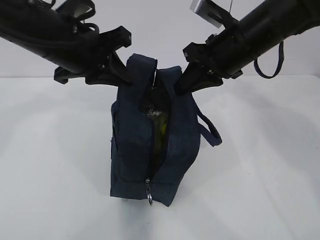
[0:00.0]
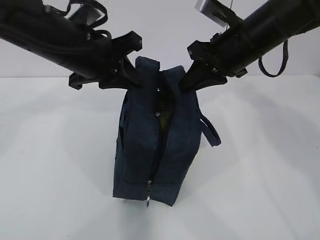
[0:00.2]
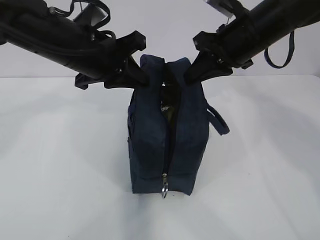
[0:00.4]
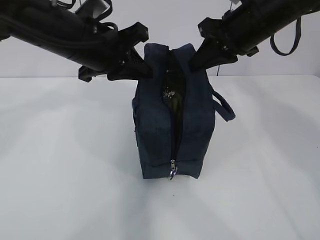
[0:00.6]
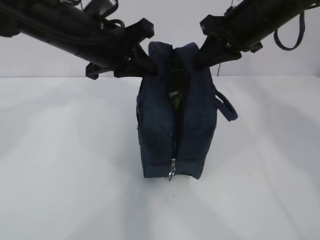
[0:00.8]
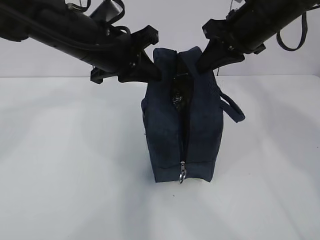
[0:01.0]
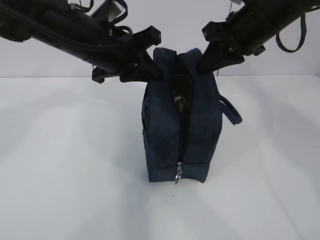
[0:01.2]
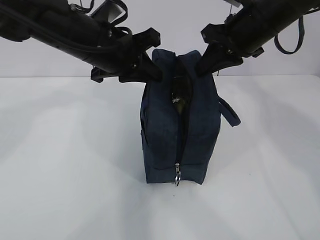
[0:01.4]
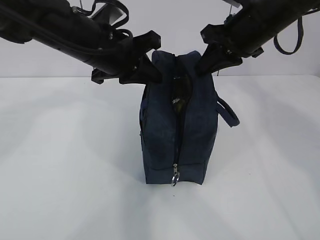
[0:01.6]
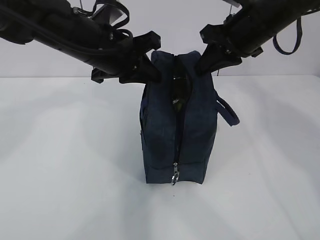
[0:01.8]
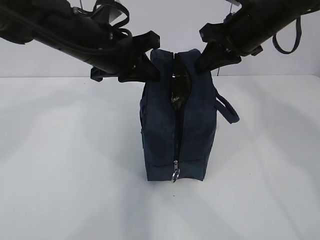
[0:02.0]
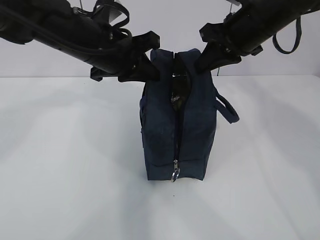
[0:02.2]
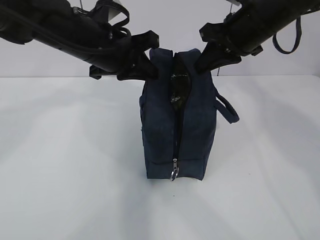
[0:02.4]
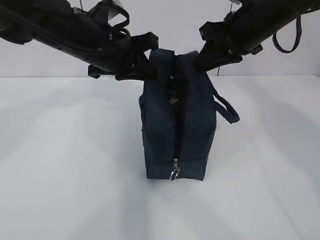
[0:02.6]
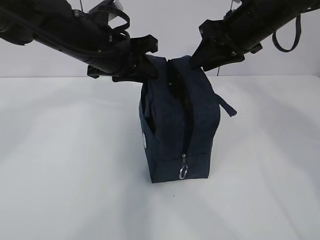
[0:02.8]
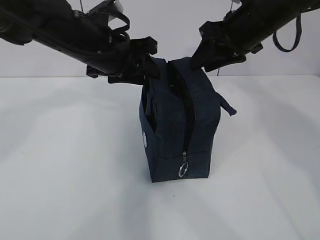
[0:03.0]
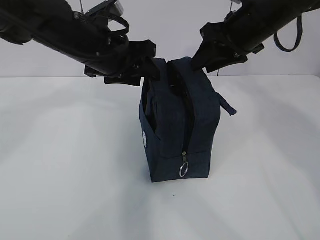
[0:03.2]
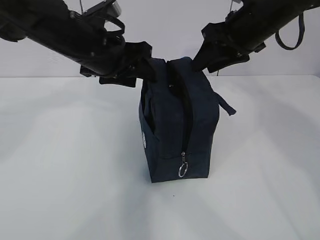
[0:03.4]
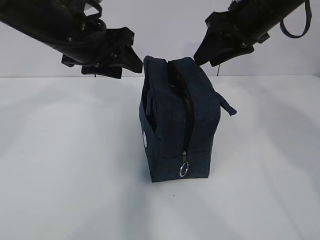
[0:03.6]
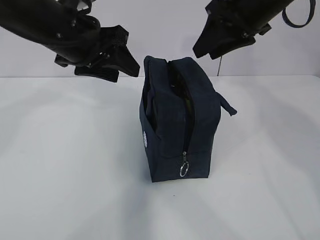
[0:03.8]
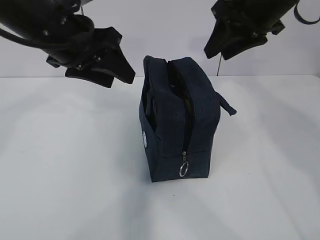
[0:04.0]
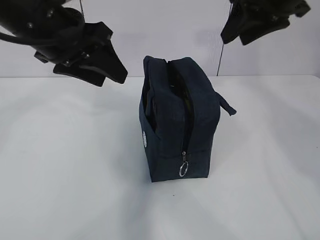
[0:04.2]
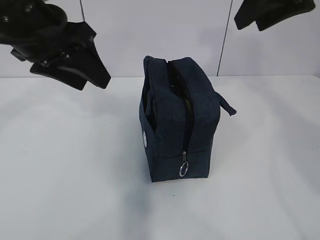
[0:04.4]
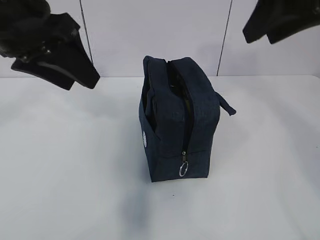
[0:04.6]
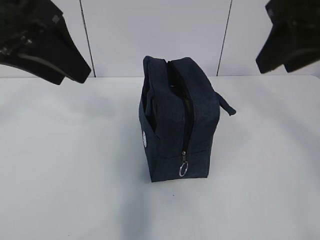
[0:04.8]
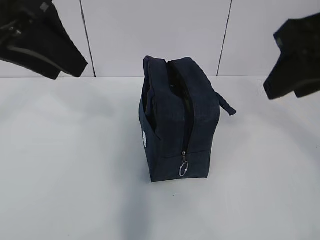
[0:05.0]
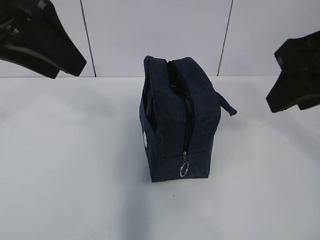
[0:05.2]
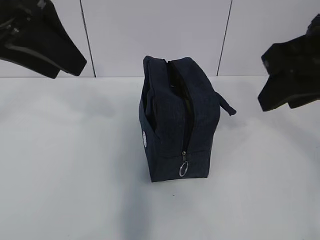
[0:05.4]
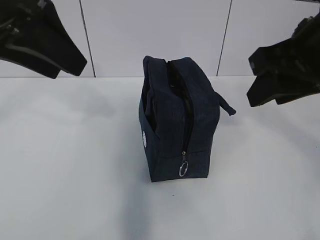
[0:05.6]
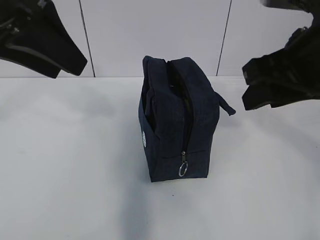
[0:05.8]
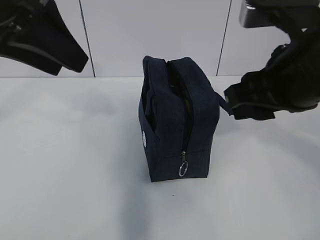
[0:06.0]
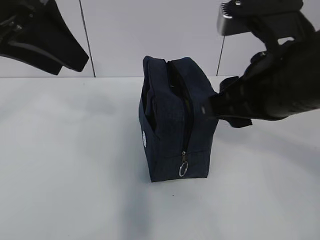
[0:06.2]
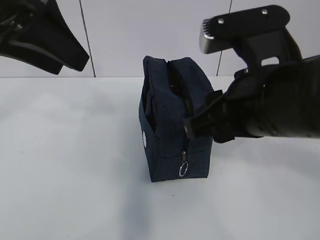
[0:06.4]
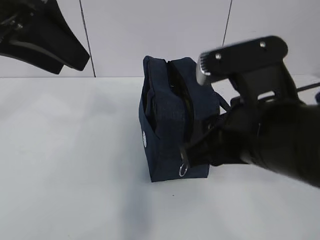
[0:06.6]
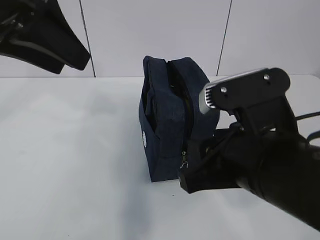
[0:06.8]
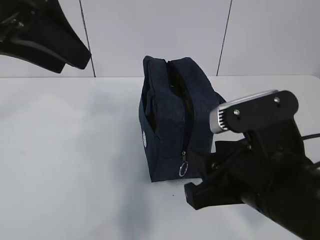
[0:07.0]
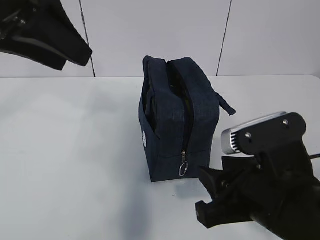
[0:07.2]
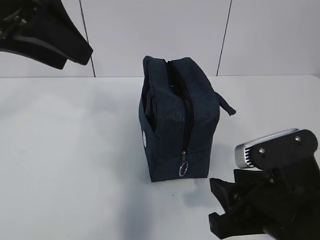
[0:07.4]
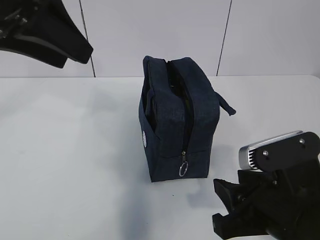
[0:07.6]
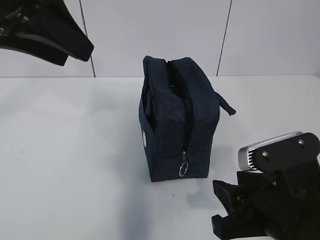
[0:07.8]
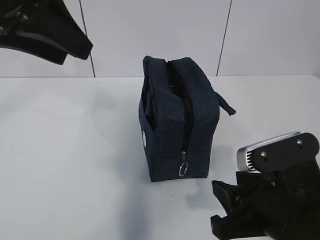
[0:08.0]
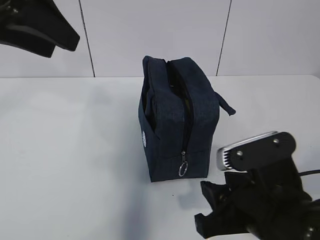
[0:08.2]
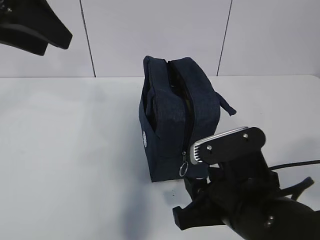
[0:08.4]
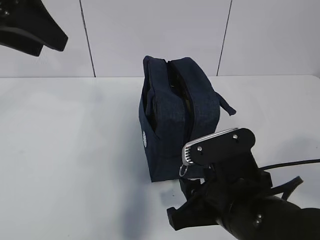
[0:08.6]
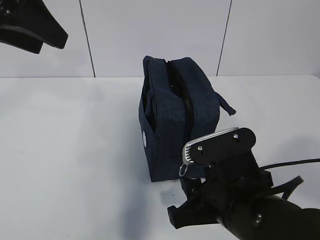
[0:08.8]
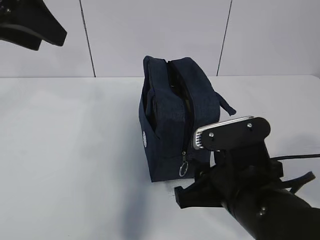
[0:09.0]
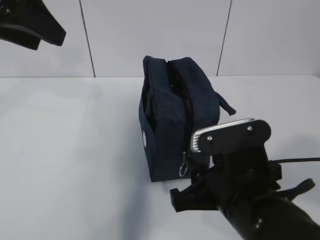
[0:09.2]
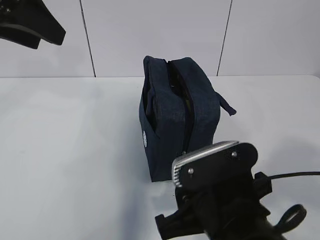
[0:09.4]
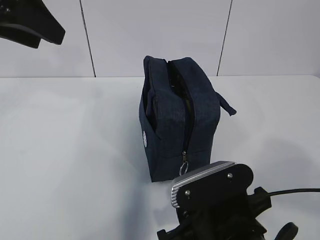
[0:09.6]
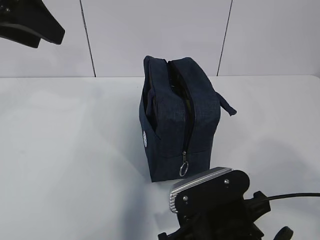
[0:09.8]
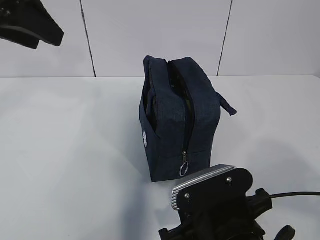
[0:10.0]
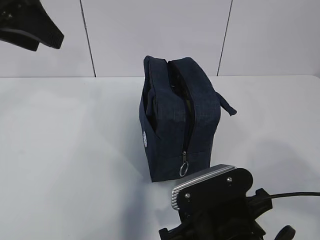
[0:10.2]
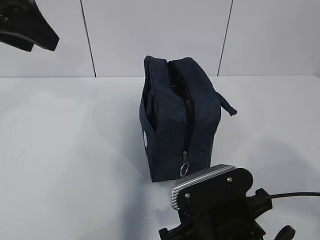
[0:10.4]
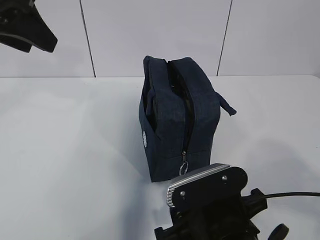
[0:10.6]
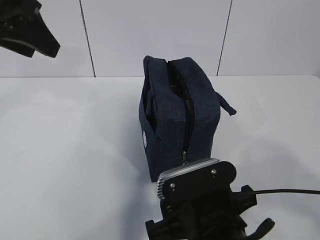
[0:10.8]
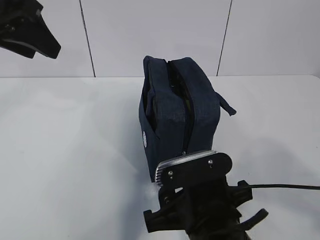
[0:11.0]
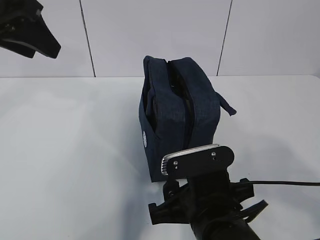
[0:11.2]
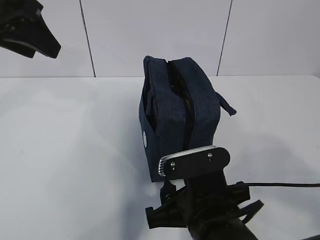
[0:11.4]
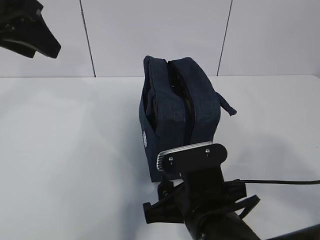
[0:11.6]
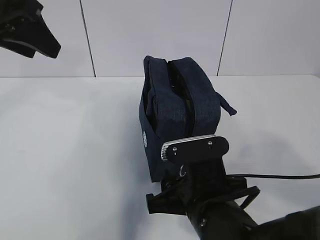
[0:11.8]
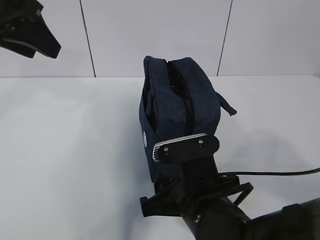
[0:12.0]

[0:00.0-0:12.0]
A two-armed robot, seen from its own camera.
0:00.0 to 0:01.6: The left gripper changes place by approximately 5 cm.
0:01.6 to 0:03.0: The left gripper opens, while the right gripper opens.
0:03.0 to 0:04.4: The right gripper is displaced upward and backward by about 10 cm. The left gripper moves upward, to the left and backward, roughly 10 cm.
0:04.4 to 0:06.0: The left gripper heads upward and backward, covering some 5 cm. Meanwhile the right gripper travels backward and downward by roughly 15 cm.
0:06.0 to 0:07.6: The right gripper is displaced downward and backward by about 15 cm.
0:07.6 to 0:09.0: The right gripper changes place by roughly 5 cm.
0:09.0 to 0:10.4: The right gripper changes place by about 5 cm.
0:10.4 to 0:12.0: The right gripper heads forward, covering some 5 cm.

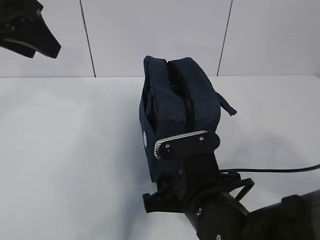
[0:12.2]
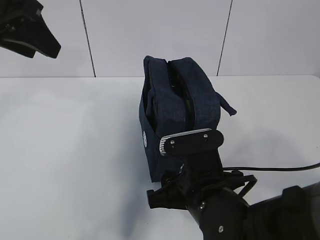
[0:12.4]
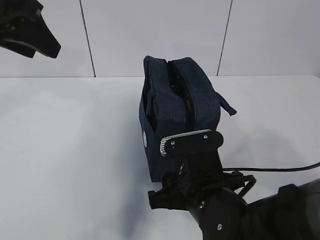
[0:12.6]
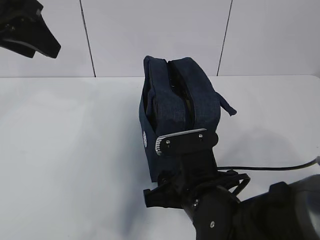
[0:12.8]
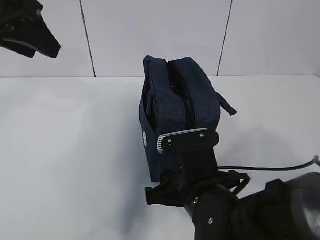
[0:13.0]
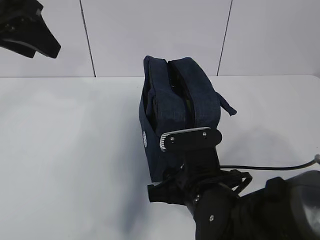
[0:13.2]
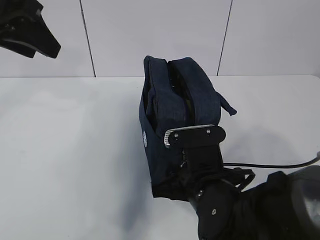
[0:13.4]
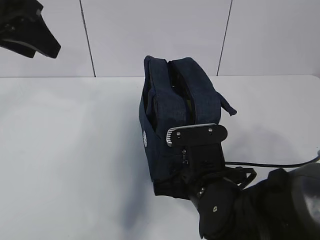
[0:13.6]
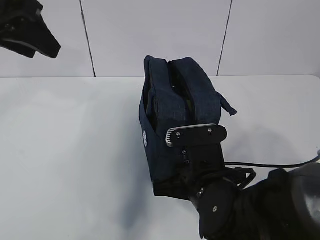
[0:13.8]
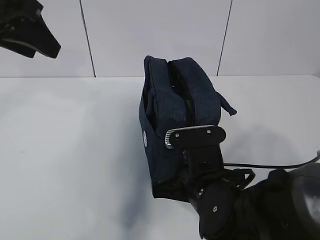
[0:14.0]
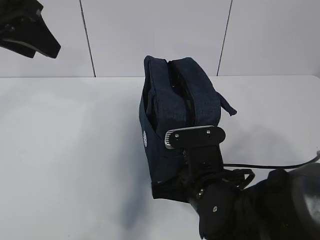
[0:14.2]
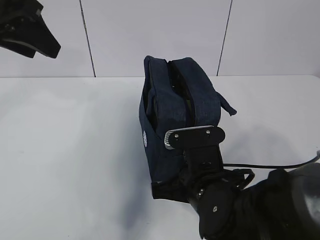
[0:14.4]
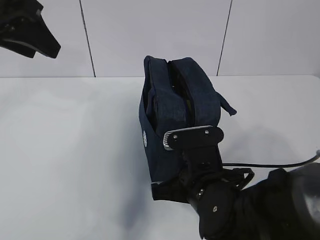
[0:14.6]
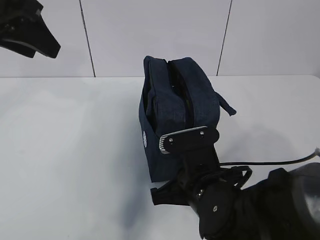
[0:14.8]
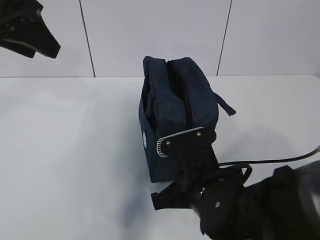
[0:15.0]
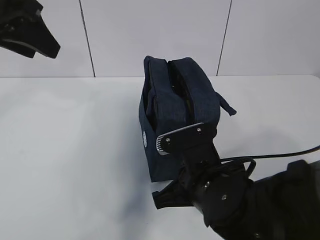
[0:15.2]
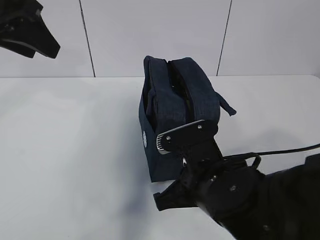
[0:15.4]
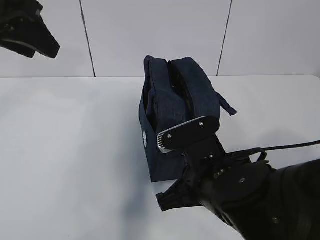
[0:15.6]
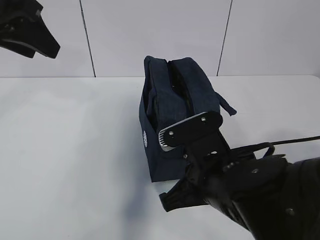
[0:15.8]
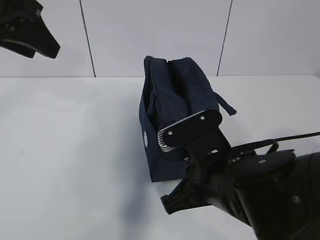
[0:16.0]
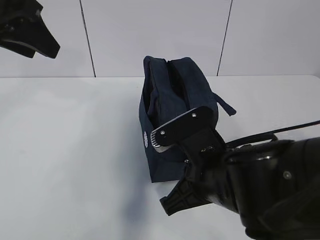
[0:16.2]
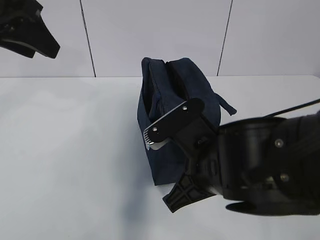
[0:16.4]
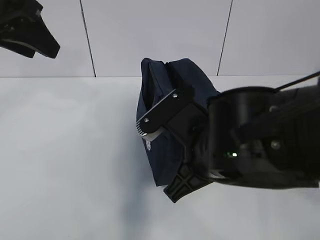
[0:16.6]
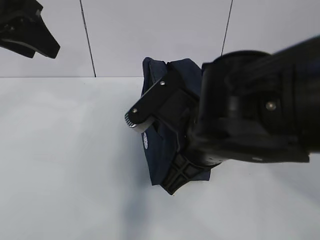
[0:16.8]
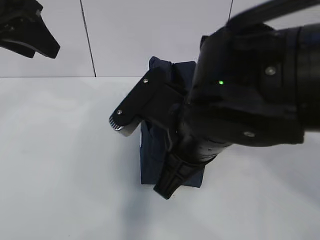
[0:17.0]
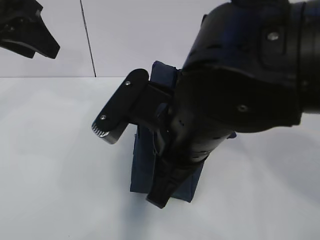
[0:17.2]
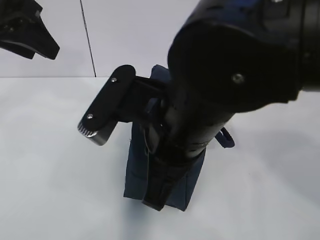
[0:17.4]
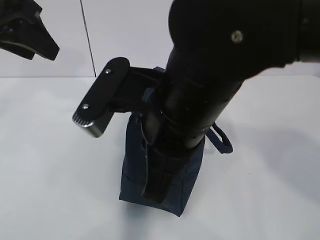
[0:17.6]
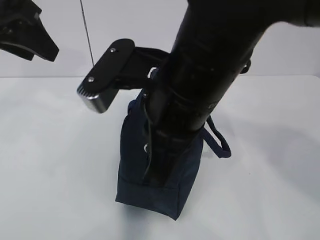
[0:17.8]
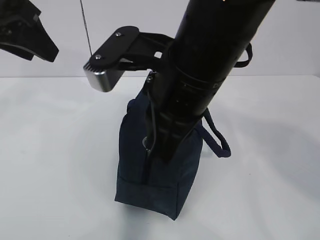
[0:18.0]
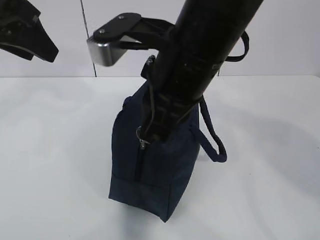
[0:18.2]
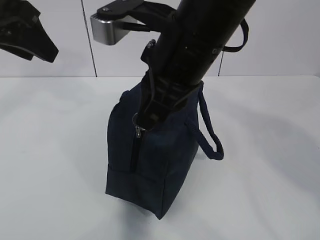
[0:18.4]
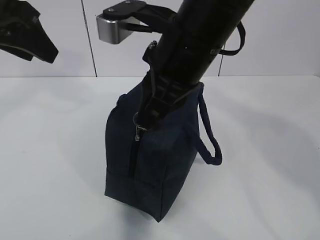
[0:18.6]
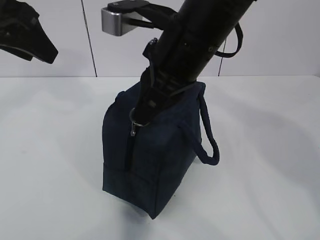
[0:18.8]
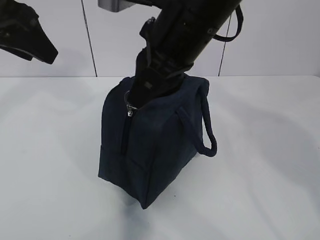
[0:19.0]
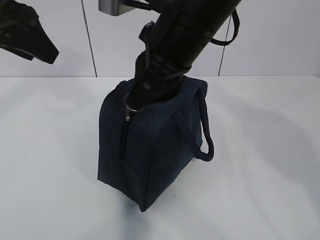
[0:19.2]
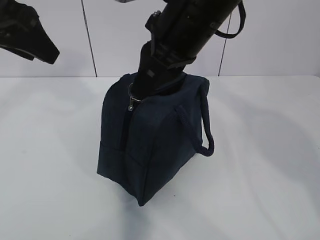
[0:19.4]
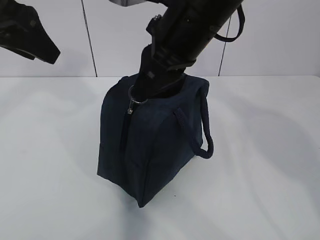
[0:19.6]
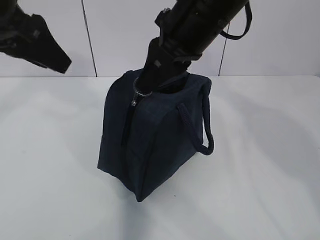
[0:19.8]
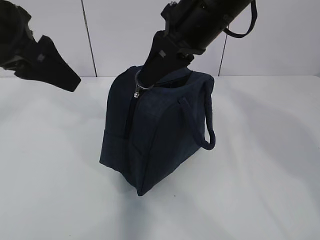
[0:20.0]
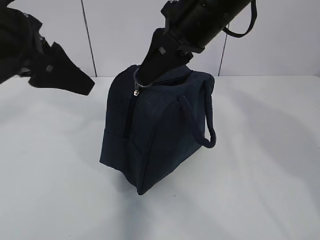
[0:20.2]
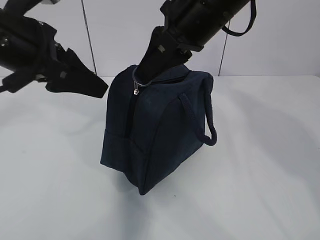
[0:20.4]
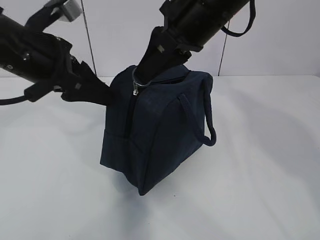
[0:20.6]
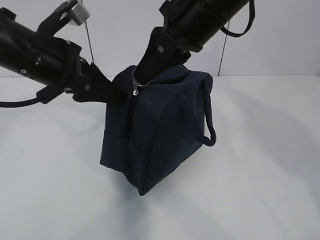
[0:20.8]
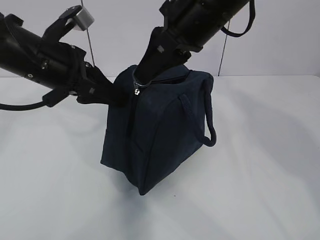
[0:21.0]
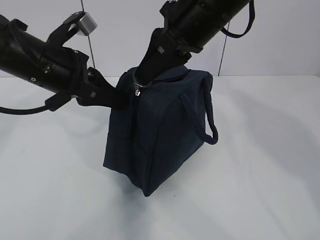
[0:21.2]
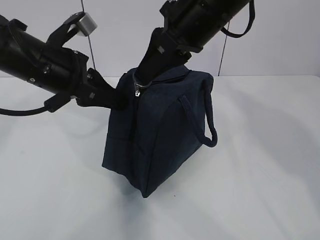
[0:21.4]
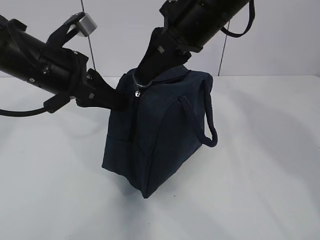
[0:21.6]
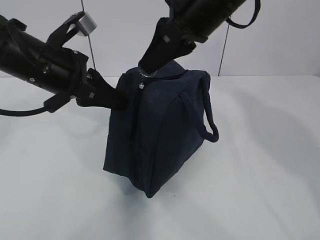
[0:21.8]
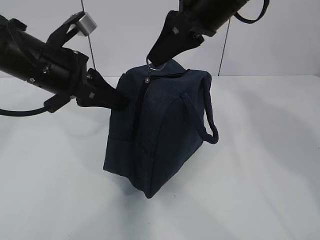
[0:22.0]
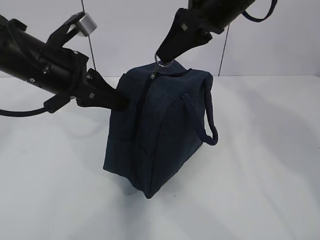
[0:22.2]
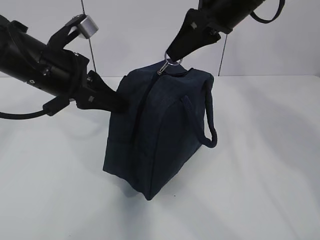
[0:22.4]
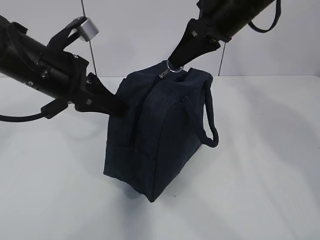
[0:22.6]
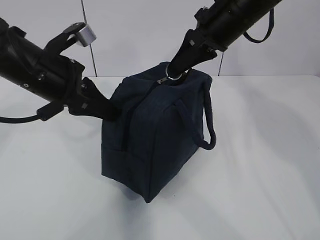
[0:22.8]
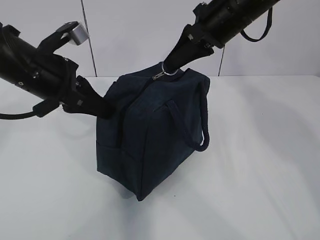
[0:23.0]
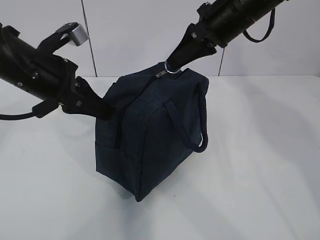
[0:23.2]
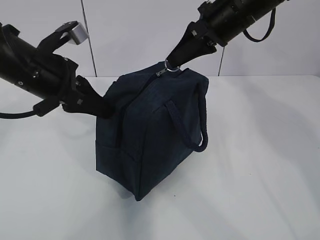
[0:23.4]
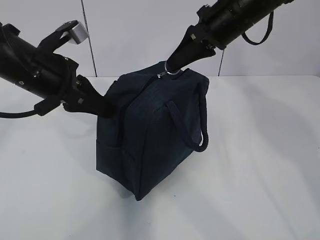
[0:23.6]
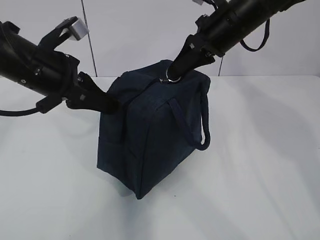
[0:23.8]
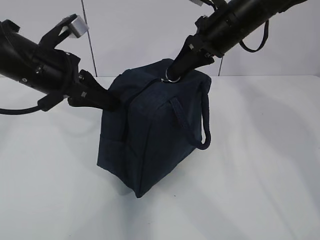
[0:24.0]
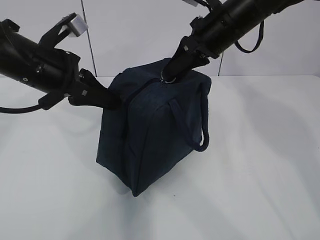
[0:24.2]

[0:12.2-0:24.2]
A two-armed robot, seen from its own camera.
Step, 0:16.0 to 0:23.6: Pull the zipper with your right hand.
0:12.2 to 0:13.8: The grippers move only a little.
0:13.8 to 0:15.2: The right gripper closes up.
0:15.2 to 0:16.6: The right gripper shifts roughly 10 cm upward.
0:16.6 to 0:18.2: The right gripper goes roughly 10 cm upward.
0:18.2 to 0:19.8: The right gripper goes roughly 5 cm forward.
0:19.8 to 0:21.2: The left gripper is displaced downward by approximately 10 cm, and closes.
0:21.2 to 0:22.6: The right gripper moves to the right, some 5 cm.
0:22.6 to 0:24.2: The grippers stay close to where they were, moving slightly.
